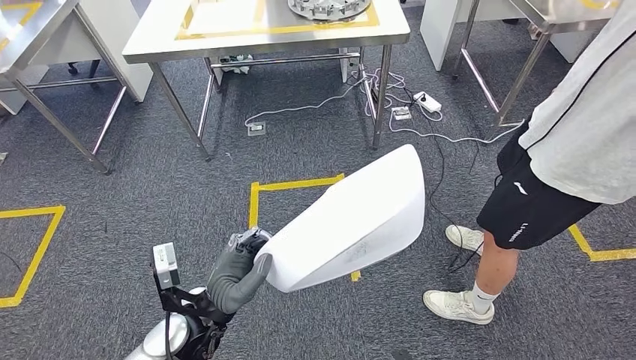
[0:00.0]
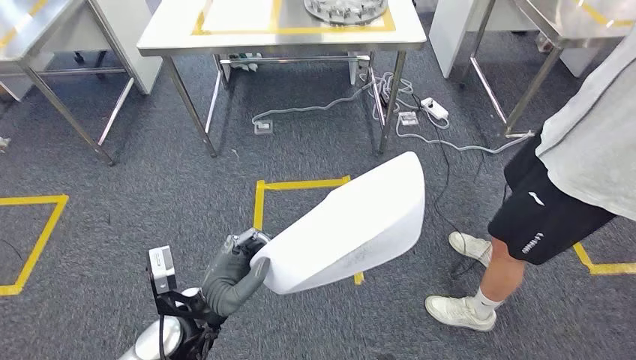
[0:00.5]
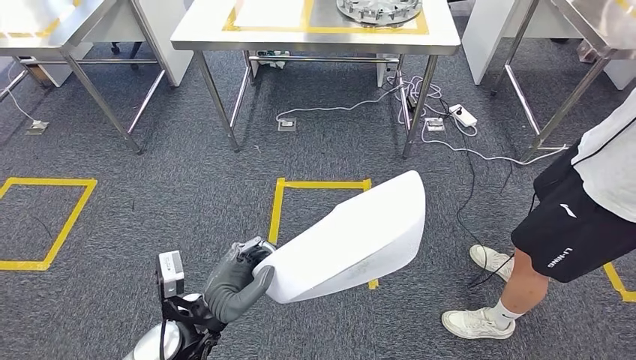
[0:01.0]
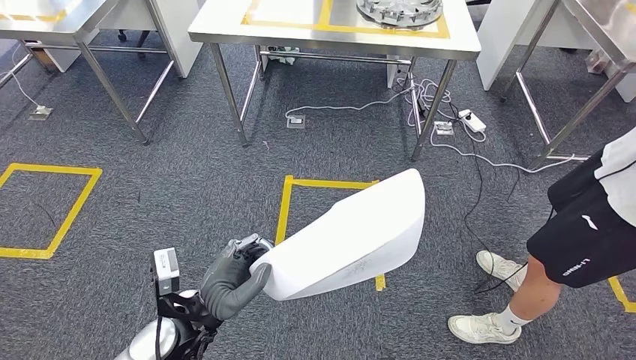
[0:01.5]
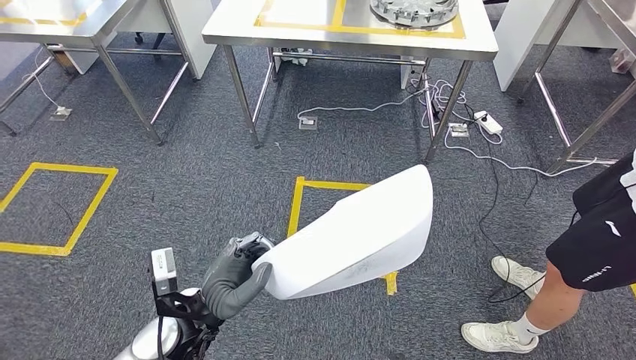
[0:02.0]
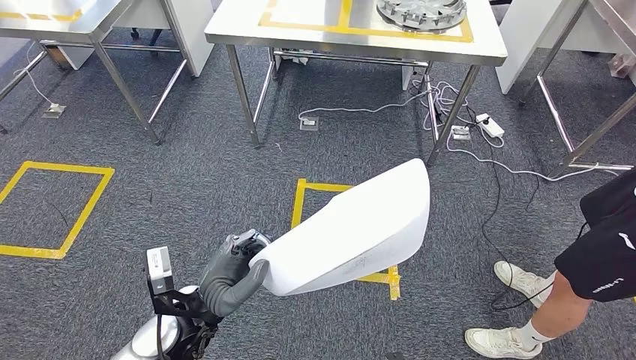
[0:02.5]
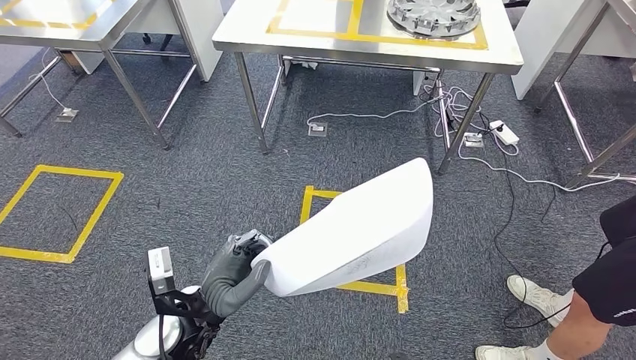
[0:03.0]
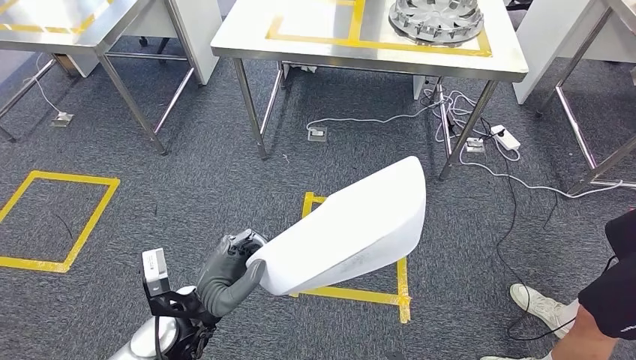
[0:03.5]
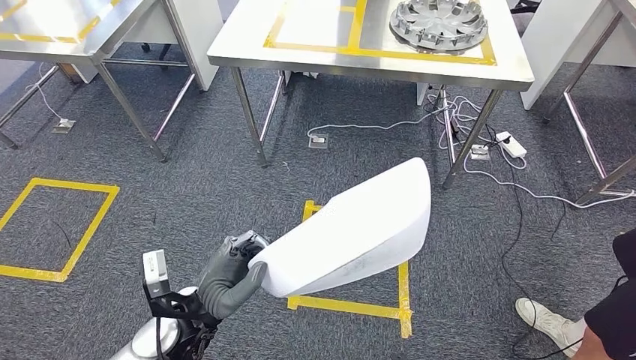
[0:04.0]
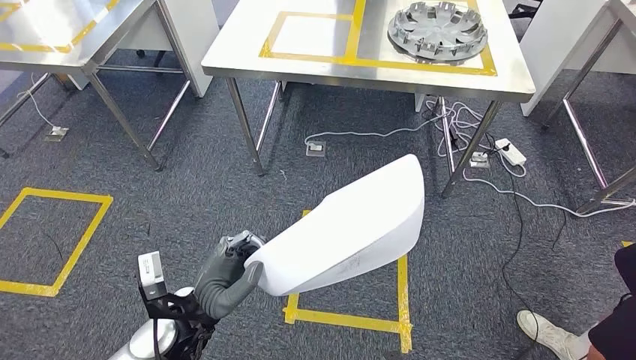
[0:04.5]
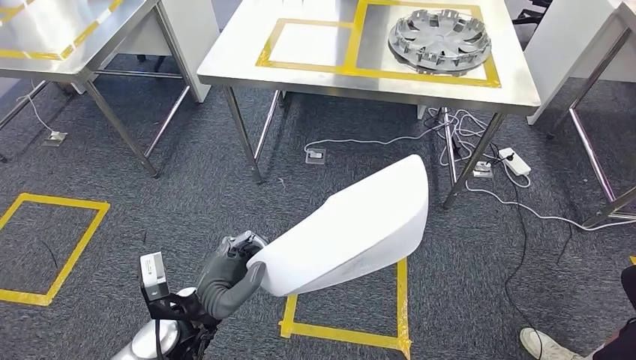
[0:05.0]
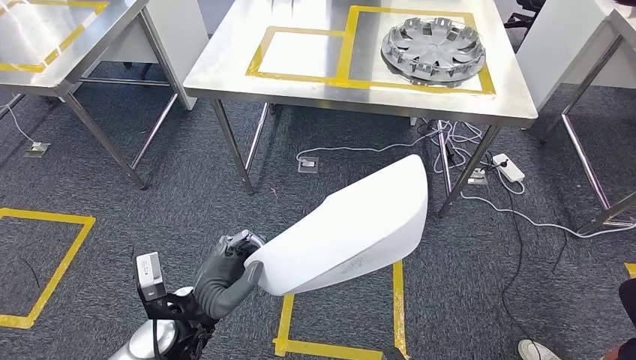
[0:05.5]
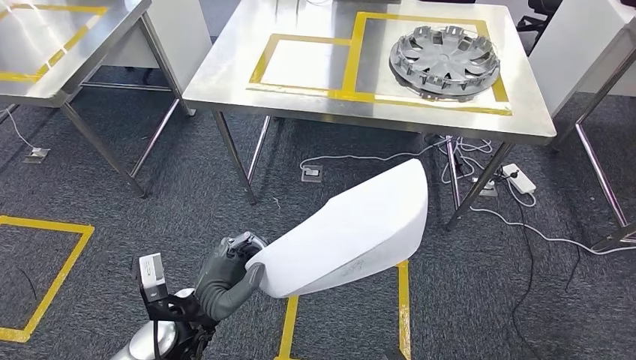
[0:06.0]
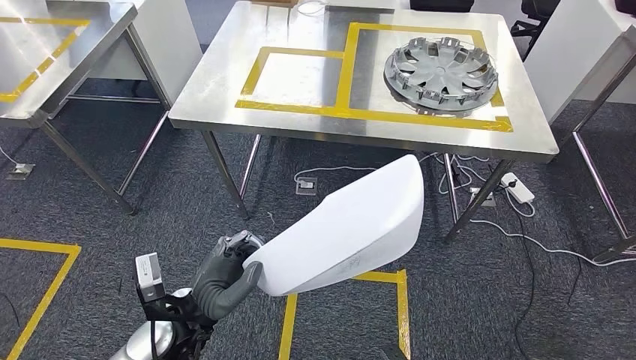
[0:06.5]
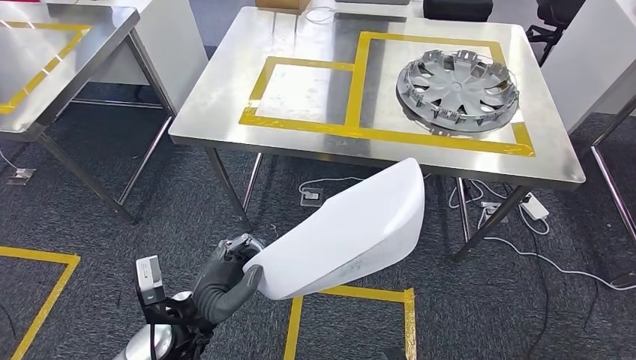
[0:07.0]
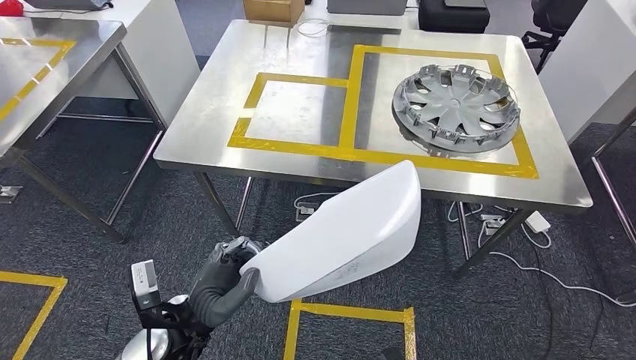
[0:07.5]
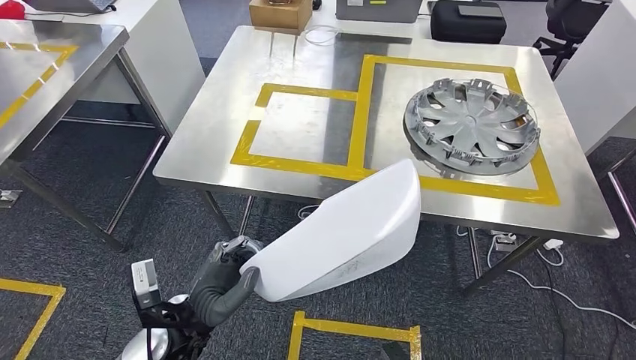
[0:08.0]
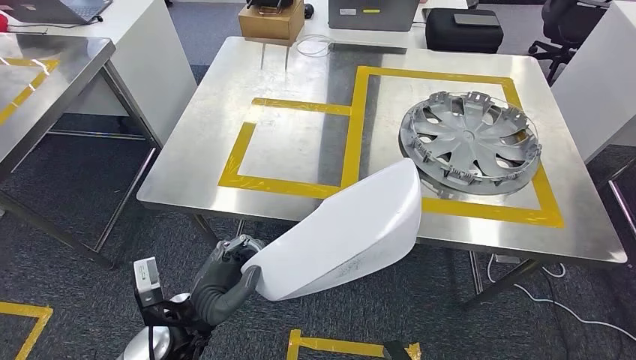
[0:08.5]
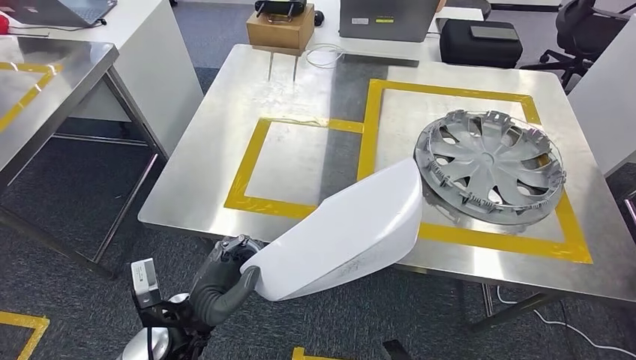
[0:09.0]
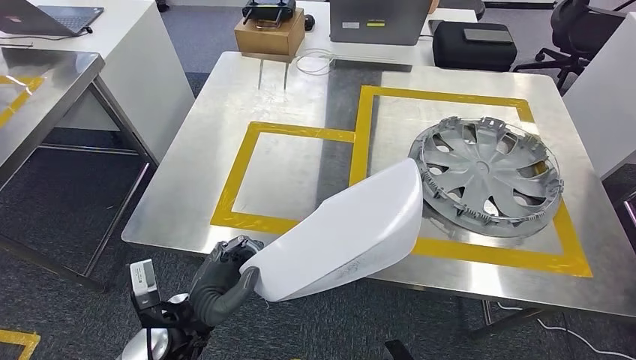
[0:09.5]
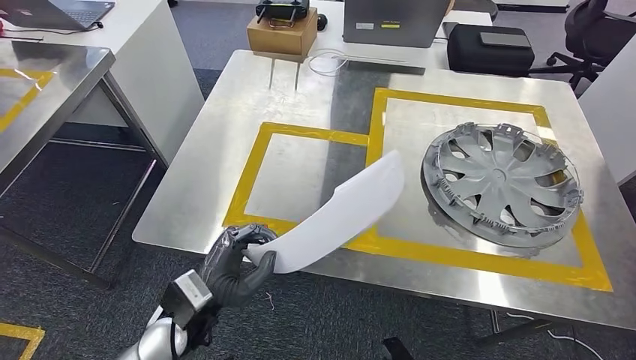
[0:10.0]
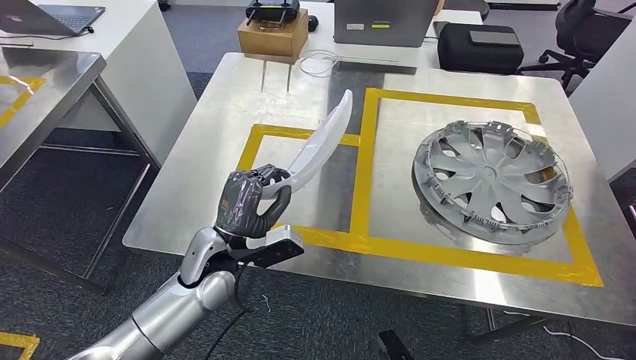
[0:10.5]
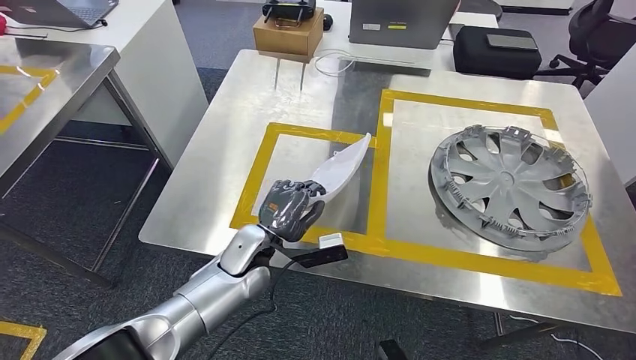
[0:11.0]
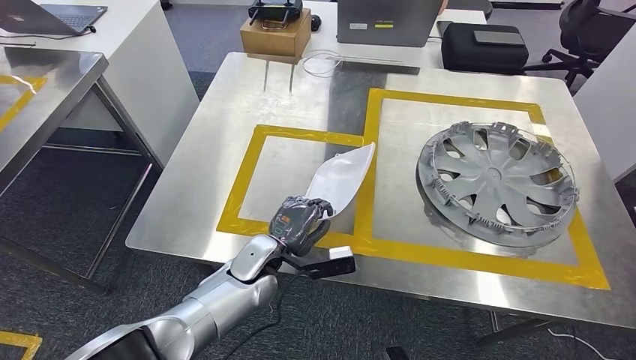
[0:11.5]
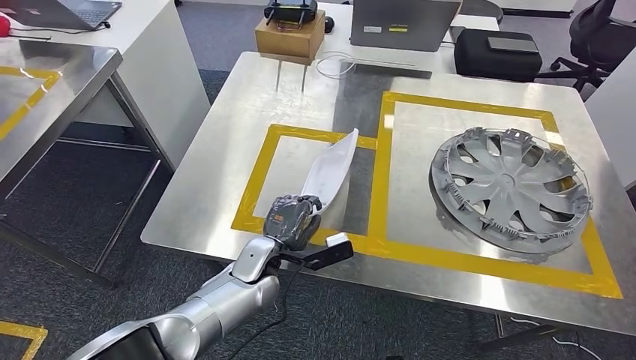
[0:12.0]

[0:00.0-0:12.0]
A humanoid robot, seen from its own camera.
Step, 0:00.0 to 0:08.0: Move the small component to the workbench.

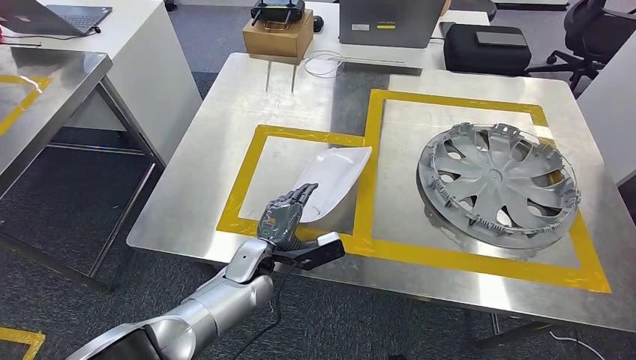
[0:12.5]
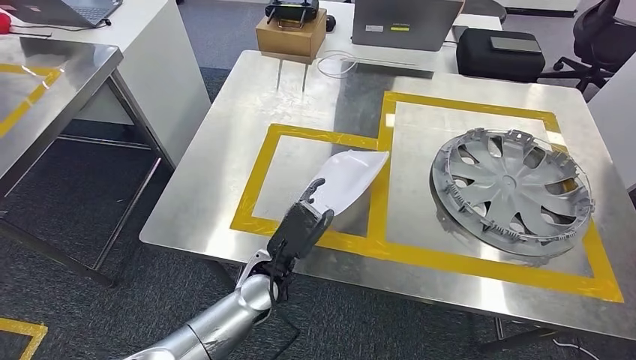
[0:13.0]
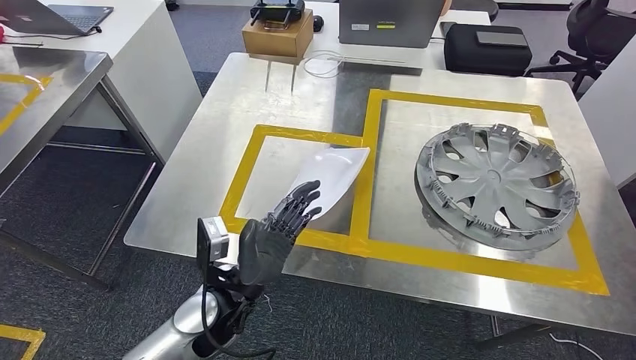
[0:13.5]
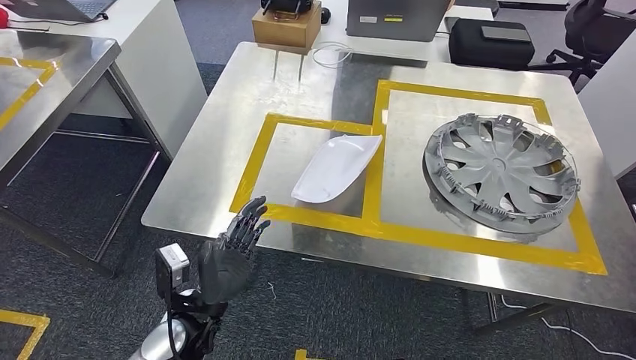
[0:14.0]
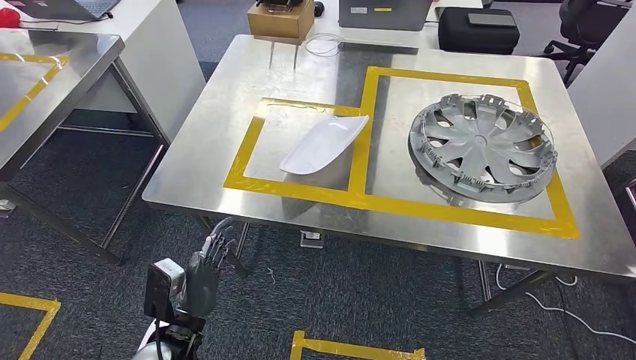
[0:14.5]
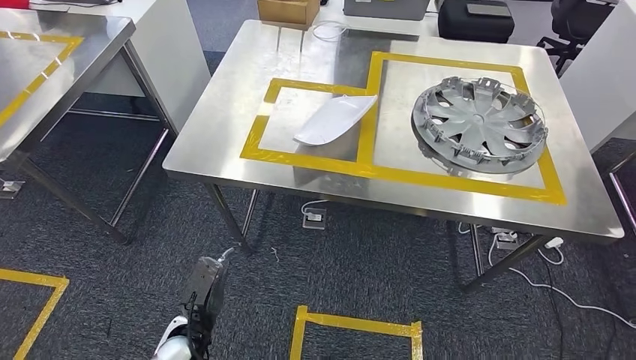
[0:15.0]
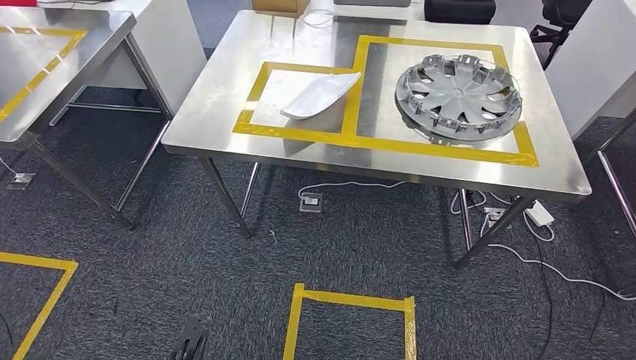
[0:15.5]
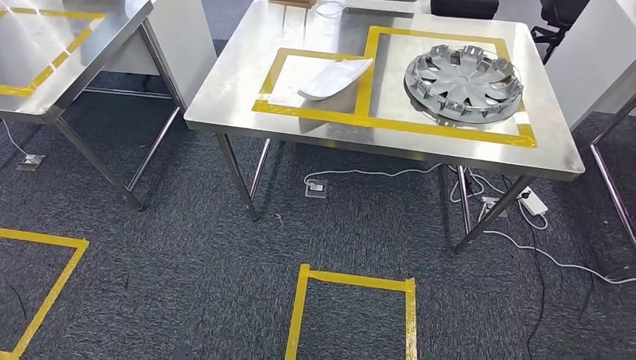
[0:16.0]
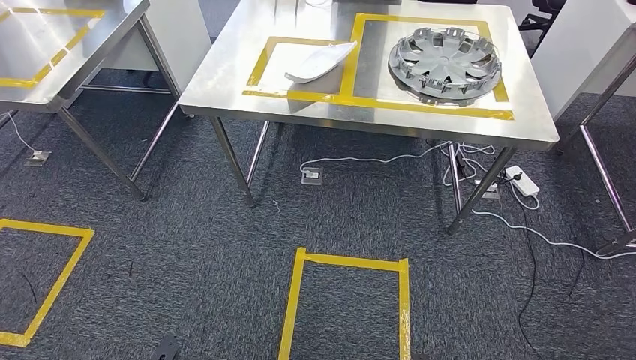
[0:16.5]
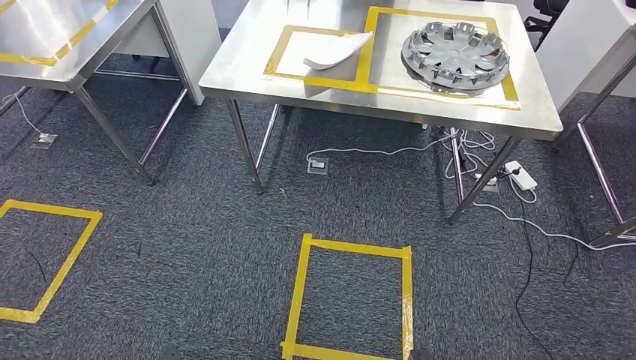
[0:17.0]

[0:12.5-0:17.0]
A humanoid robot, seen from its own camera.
Step, 0:14.5 to 0:17.0: Return to the initial position at the workbench.
